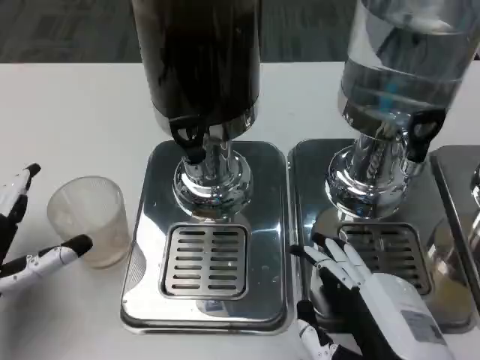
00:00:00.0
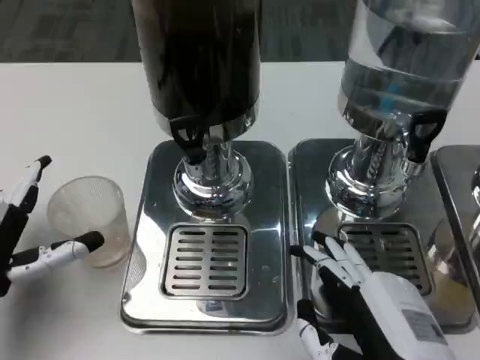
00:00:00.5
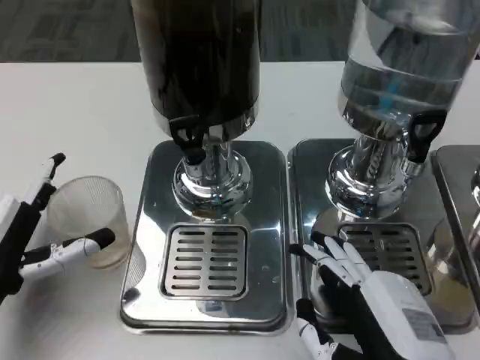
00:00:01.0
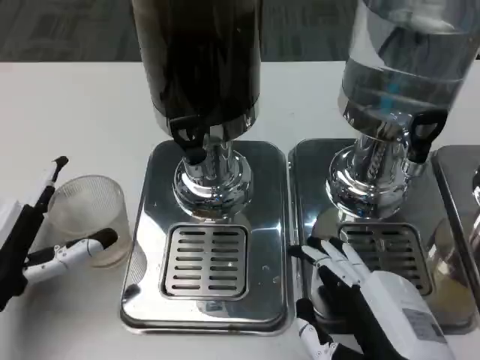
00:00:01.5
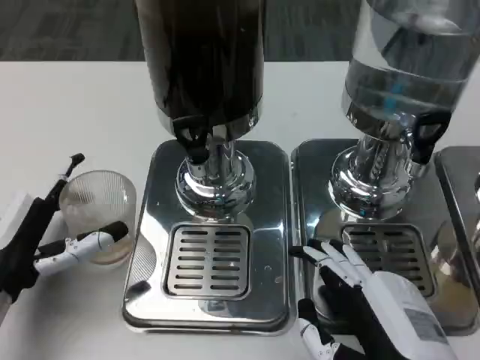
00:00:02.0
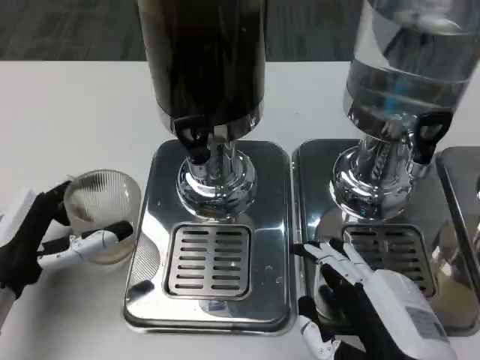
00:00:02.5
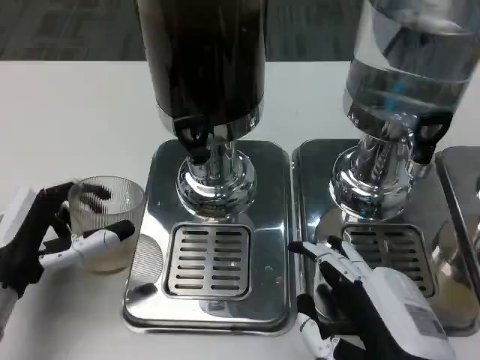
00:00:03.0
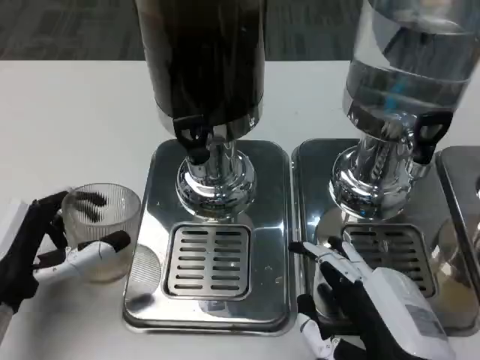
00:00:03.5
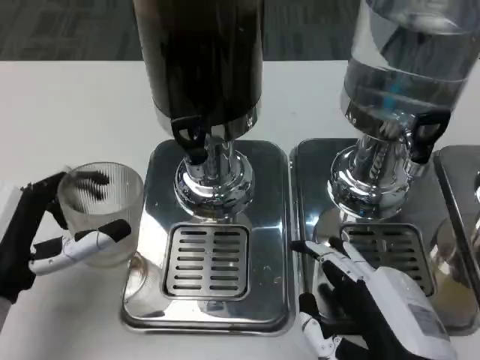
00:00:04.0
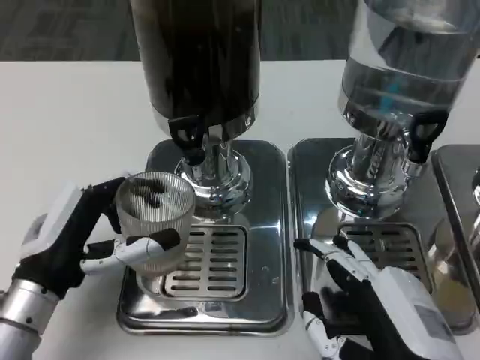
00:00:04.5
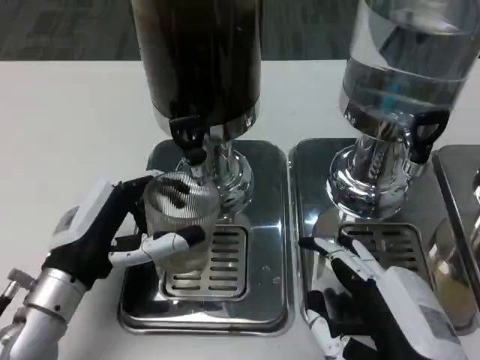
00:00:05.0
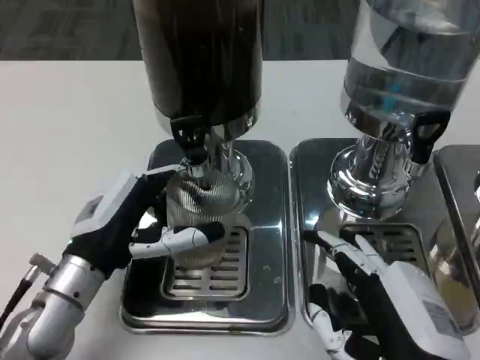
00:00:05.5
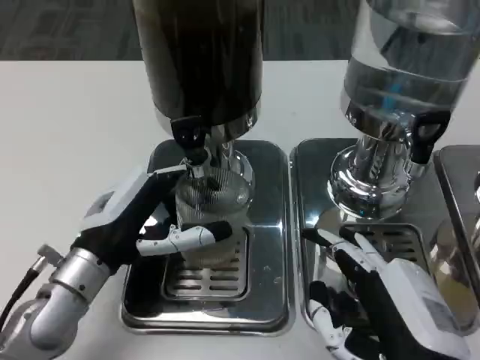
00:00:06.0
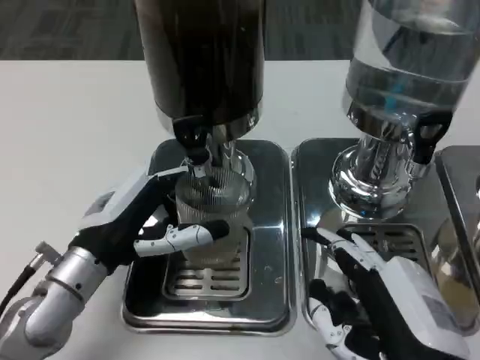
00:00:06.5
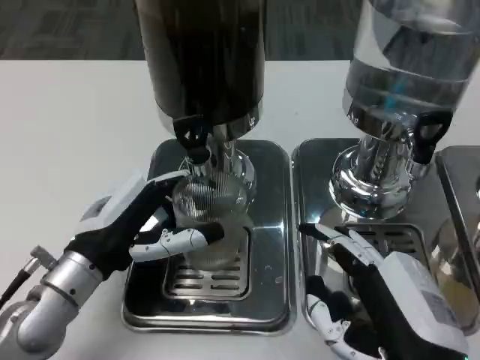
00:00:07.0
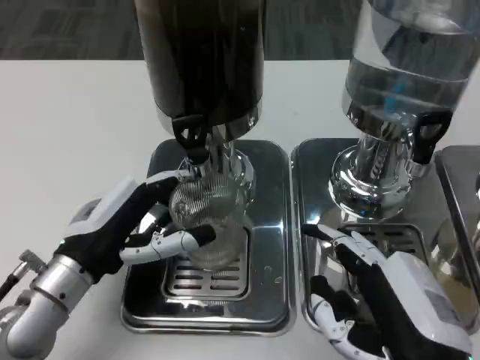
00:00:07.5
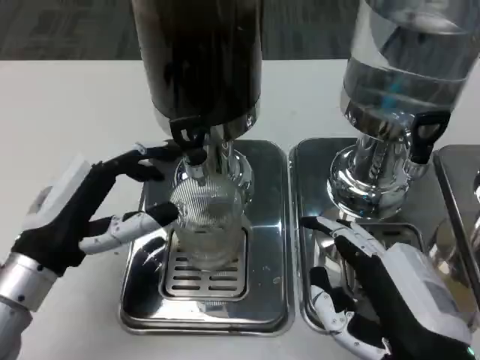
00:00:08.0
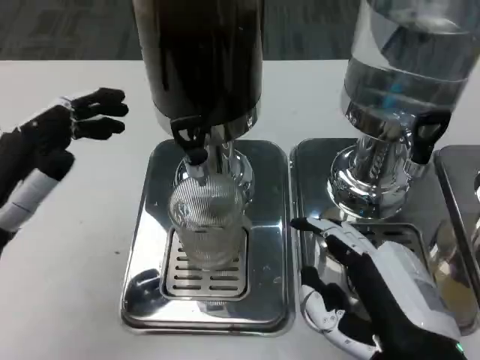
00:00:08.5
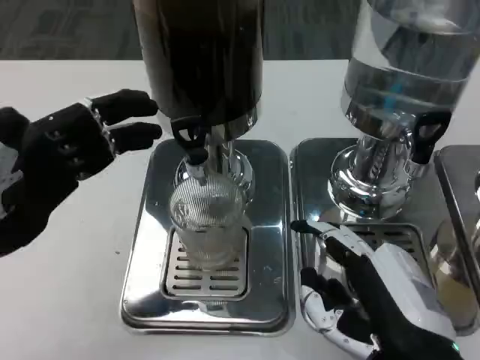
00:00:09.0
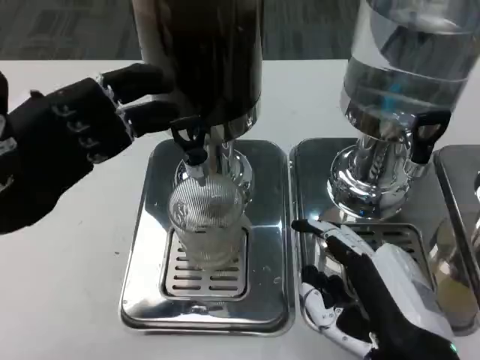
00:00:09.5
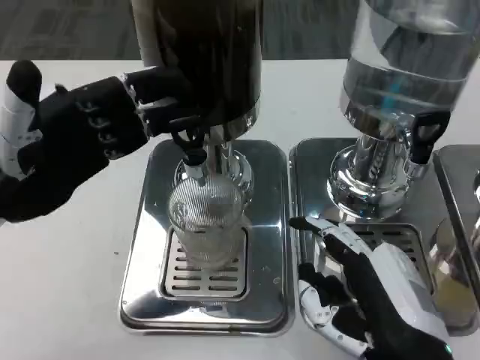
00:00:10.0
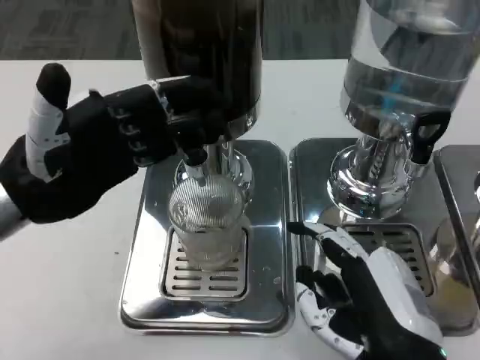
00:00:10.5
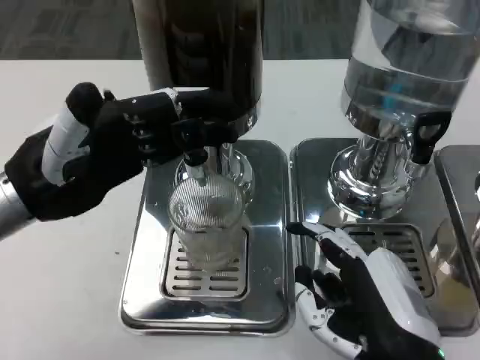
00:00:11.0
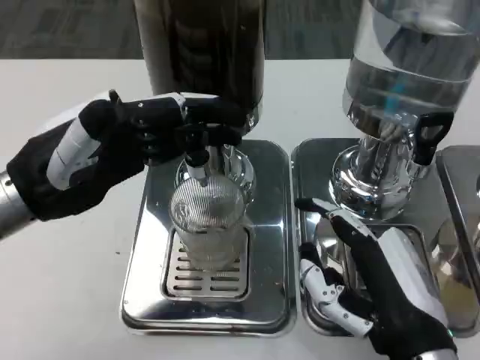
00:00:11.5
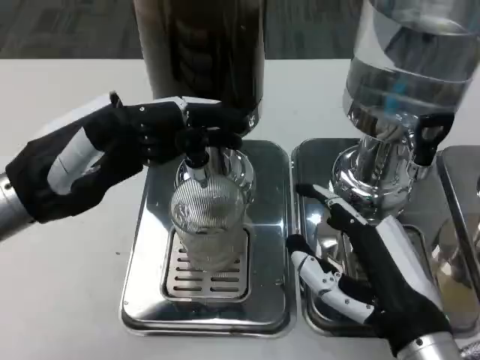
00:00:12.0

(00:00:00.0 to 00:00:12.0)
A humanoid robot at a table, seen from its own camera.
Task of the whole recording: Grasp the cup under the faucet to collect the drink, then remove the cup.
00:00:02.0 - 00:00:04.0: The hands make only small movements.
00:00:04.0 - 00:00:06.0: The left hand is displaced to the right and forward by approximately 10 cm.
00:00:06.0 - 00:00:08.0: The left hand moves some 5 cm.
00:00:08.0 - 00:00:10.0: The left hand is displaced upward by some 10 cm.

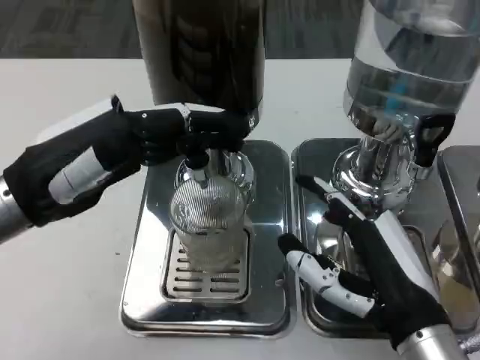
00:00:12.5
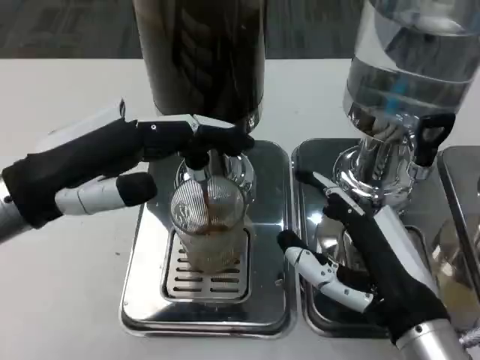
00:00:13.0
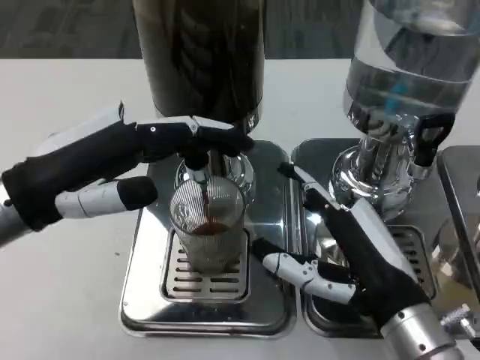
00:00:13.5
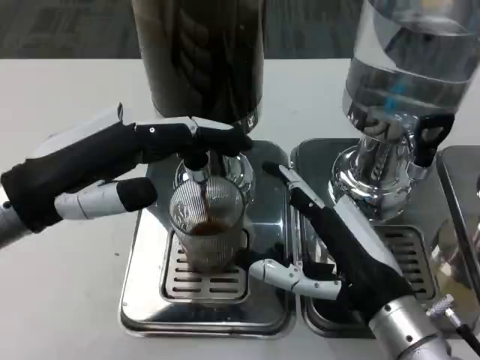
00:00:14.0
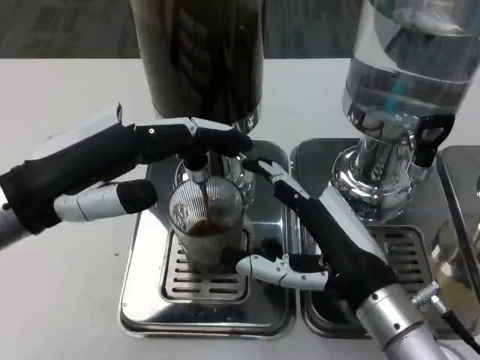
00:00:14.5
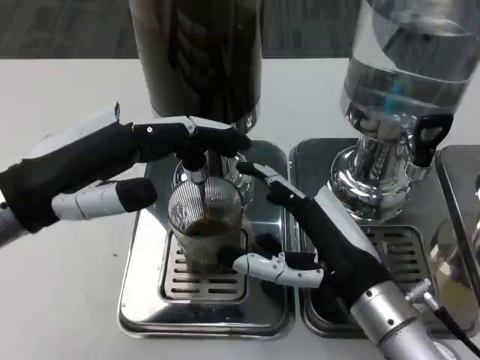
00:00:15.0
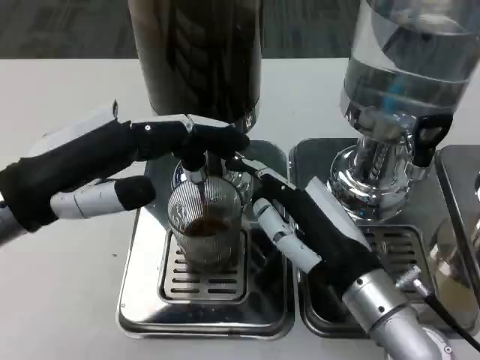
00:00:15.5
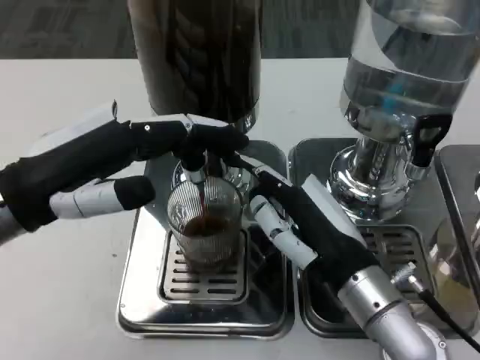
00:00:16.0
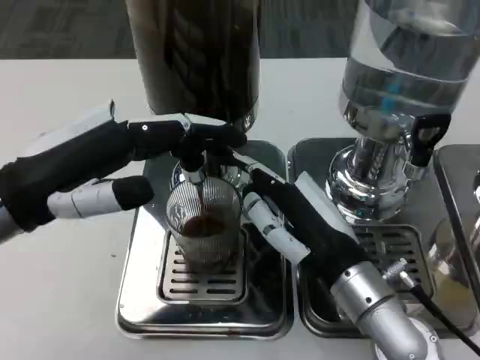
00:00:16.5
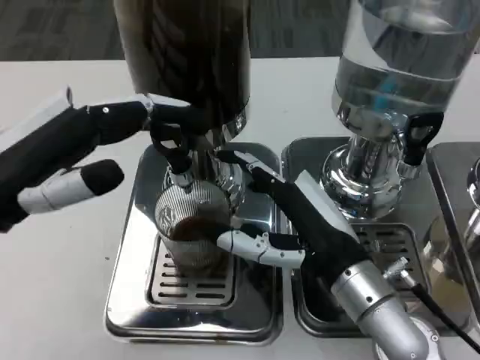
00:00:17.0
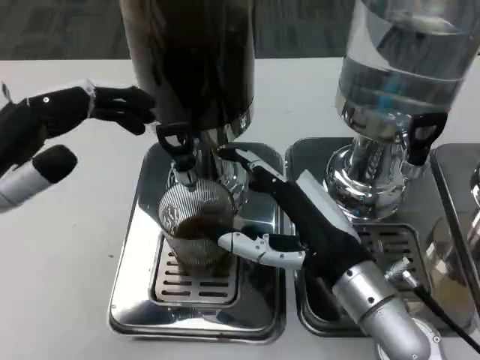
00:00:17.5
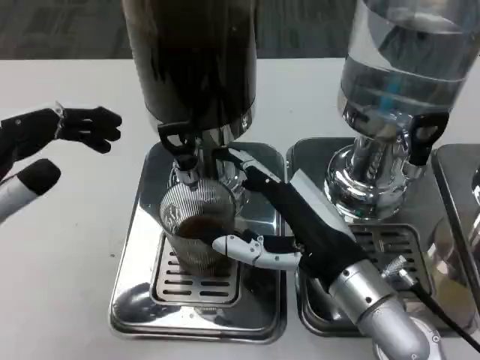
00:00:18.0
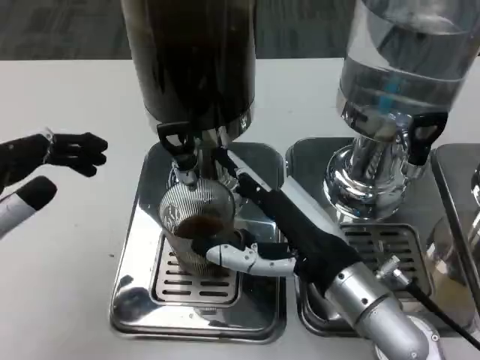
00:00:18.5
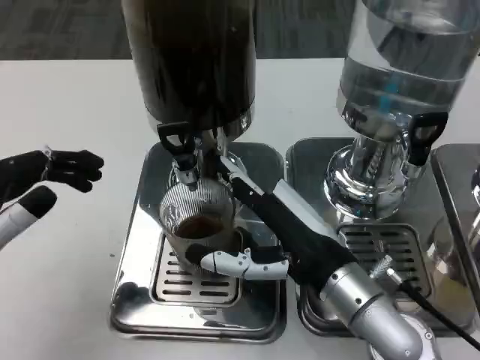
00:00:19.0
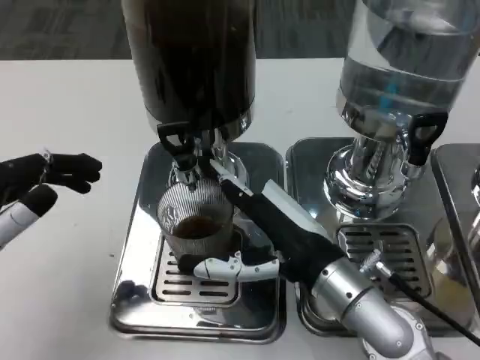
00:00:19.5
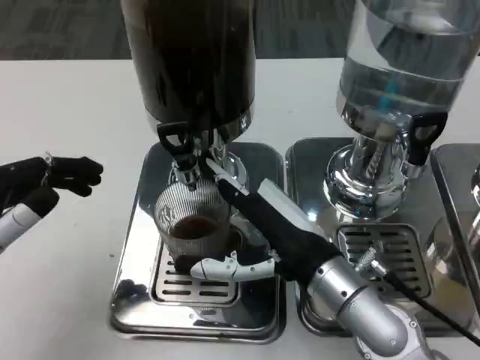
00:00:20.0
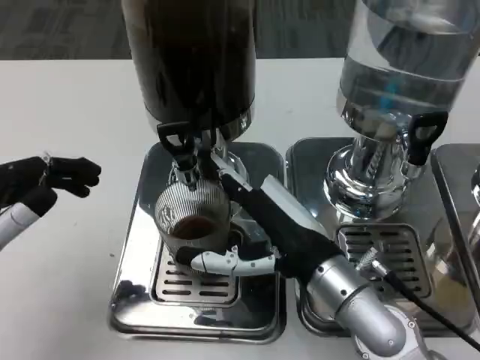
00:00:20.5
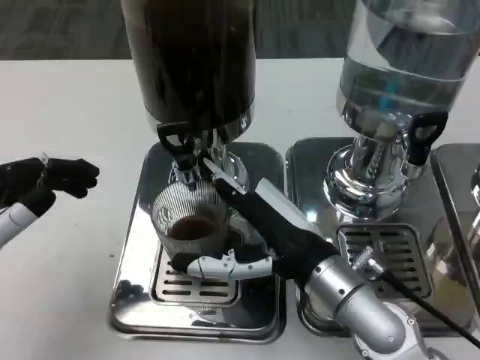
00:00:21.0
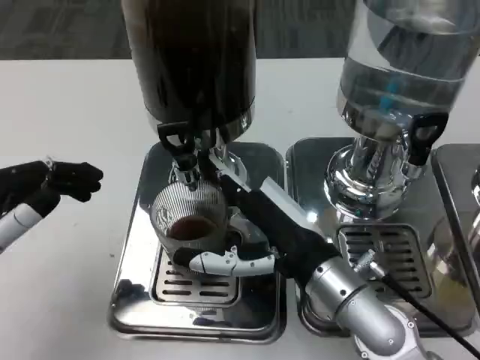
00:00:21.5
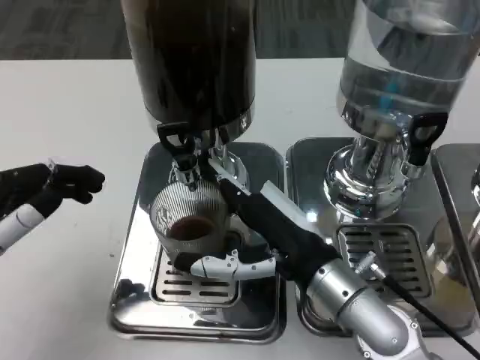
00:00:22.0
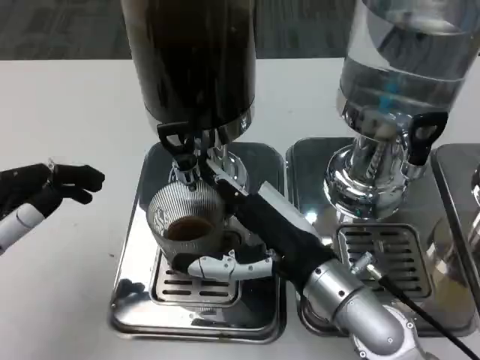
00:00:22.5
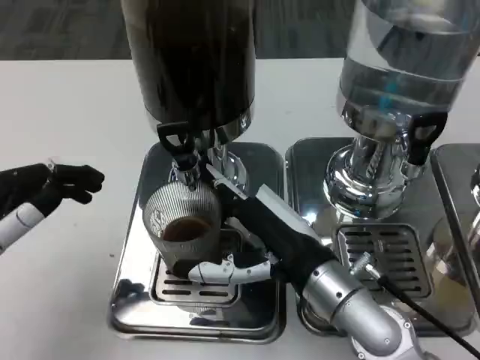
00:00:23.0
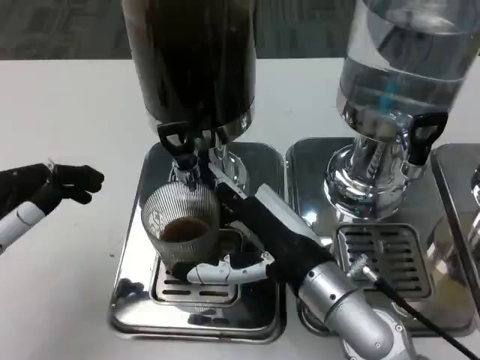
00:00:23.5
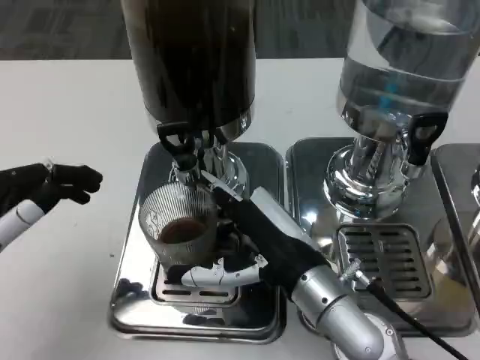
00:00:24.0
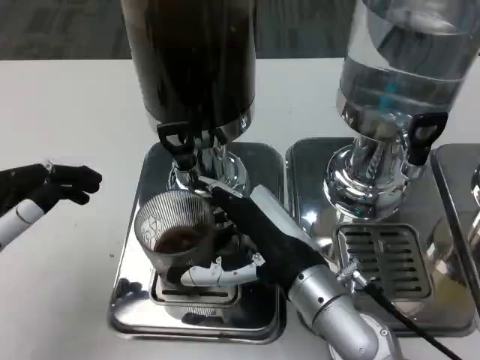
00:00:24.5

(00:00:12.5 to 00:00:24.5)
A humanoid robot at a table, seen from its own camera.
Task of the whole recording: Grasp the cup under the faucet to collect the drink, then remove the cup.
00:00:16.5 - 00:00:18.5: The left hand shifts about 10 cm backward and to the left.
00:00:18.5 - 00:00:24.5: The hands make only small movements.

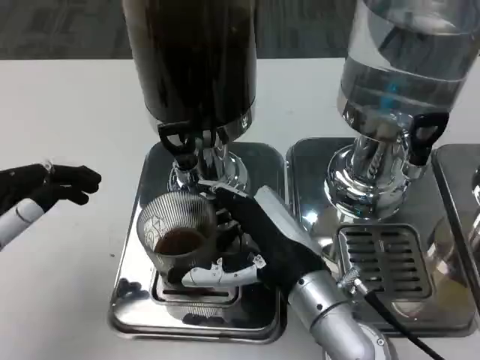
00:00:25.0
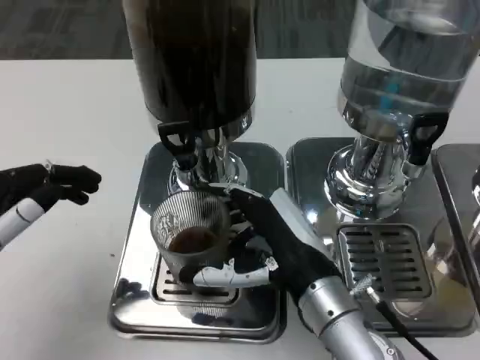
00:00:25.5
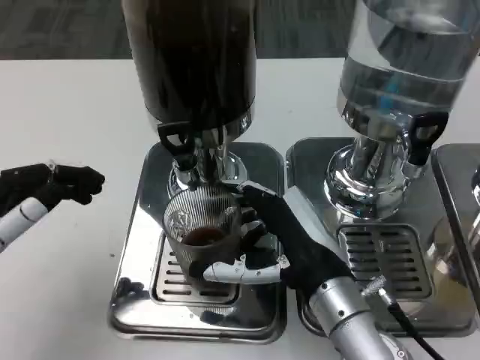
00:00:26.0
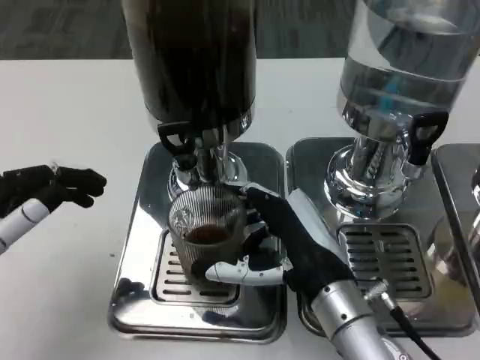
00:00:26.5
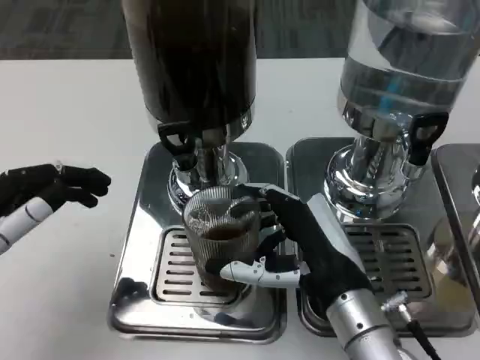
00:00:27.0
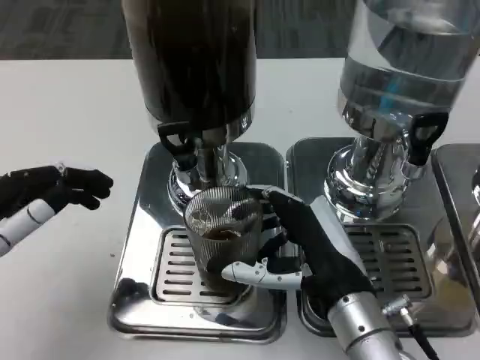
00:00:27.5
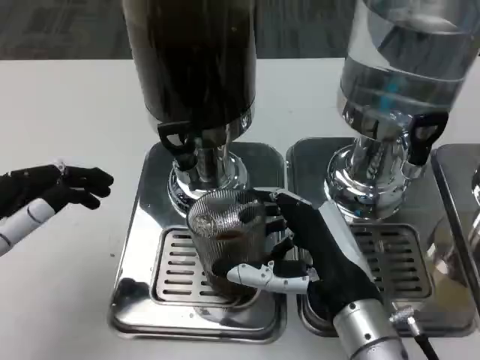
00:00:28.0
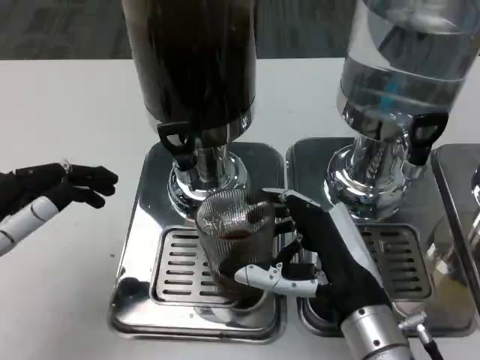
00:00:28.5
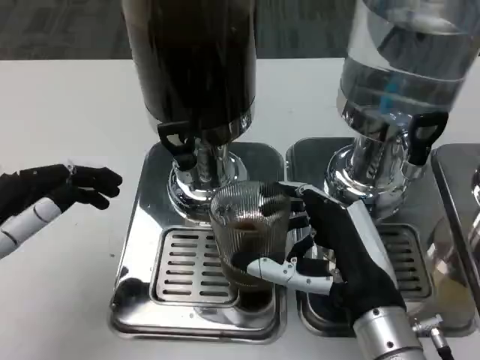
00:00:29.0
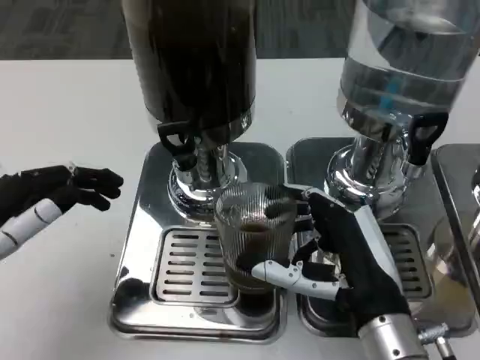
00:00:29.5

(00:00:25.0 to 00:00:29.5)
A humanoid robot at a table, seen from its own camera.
Task of the whole recording: Grasp the cup under the faucet to collect the drink, then remove the cup.
00:00:25.0 - 00:00:27.0: The hands move only a little.
00:00:27.0 - 00:00:29.5: The hands stay close to where they were, moving slightly.
